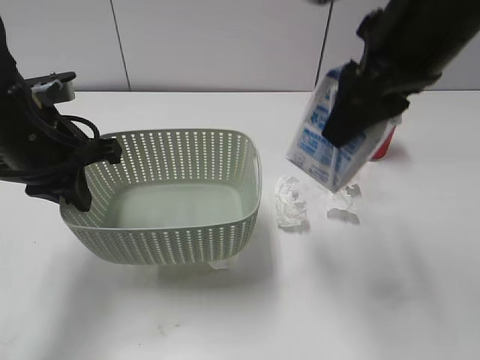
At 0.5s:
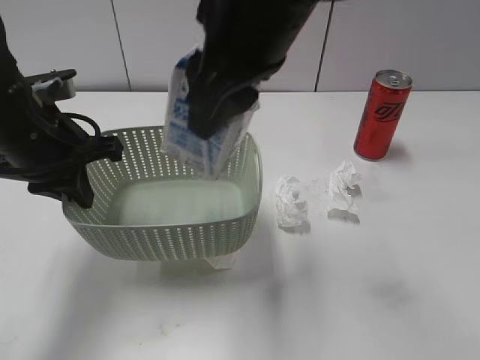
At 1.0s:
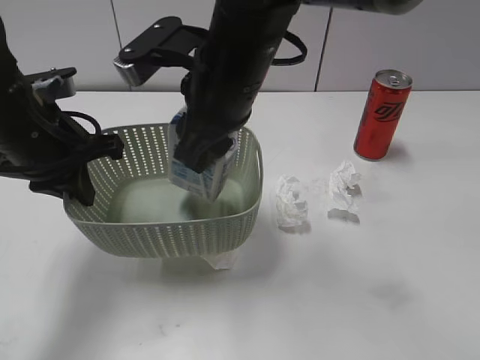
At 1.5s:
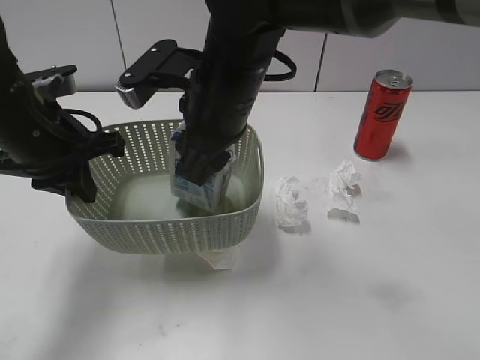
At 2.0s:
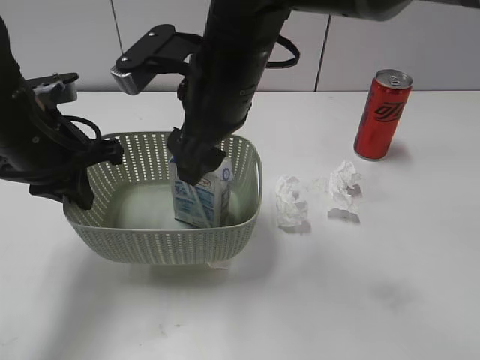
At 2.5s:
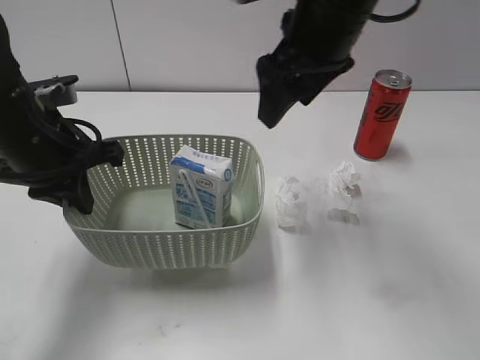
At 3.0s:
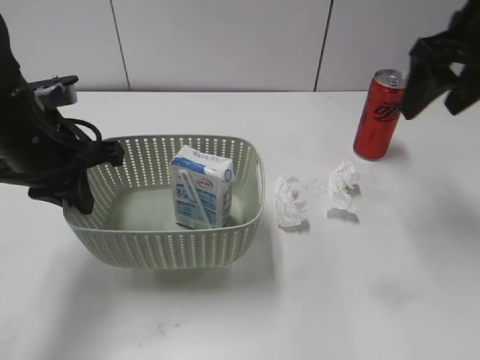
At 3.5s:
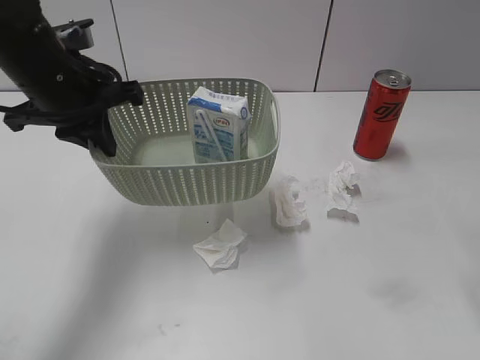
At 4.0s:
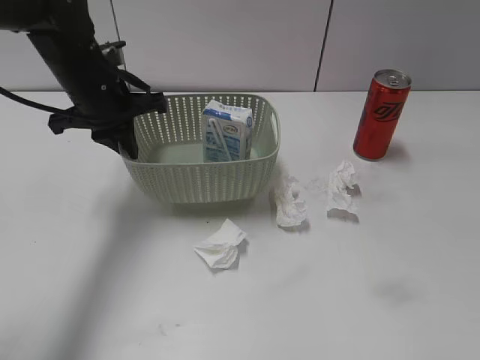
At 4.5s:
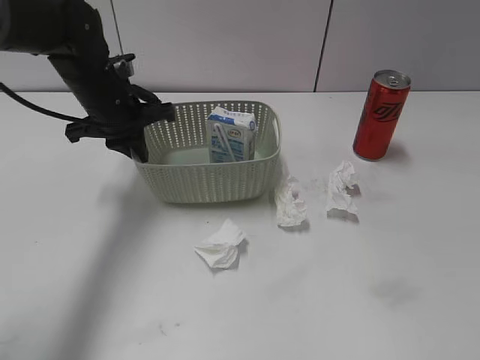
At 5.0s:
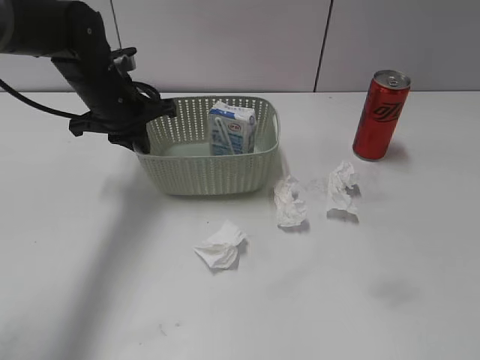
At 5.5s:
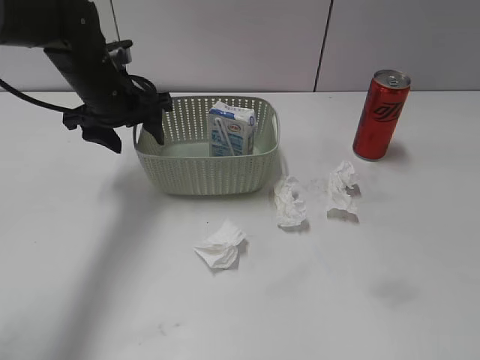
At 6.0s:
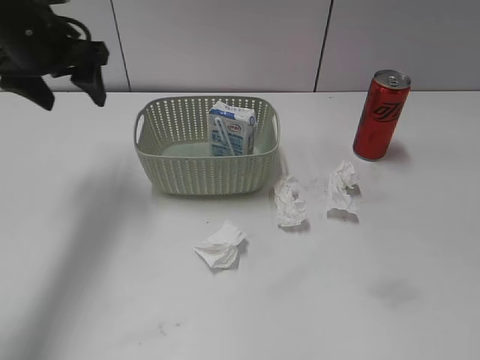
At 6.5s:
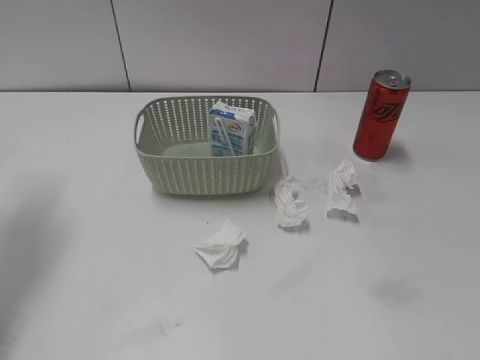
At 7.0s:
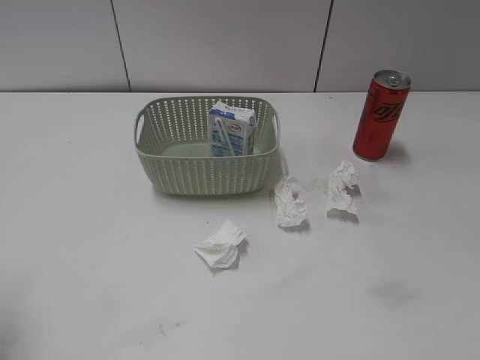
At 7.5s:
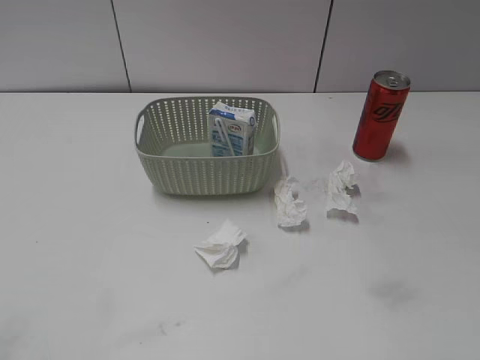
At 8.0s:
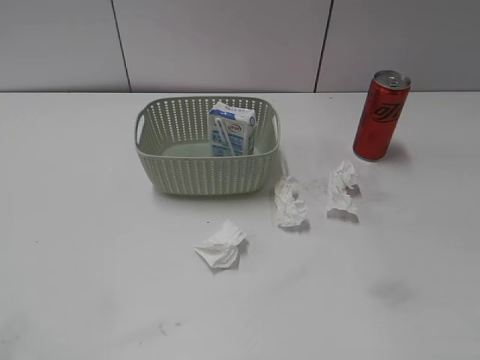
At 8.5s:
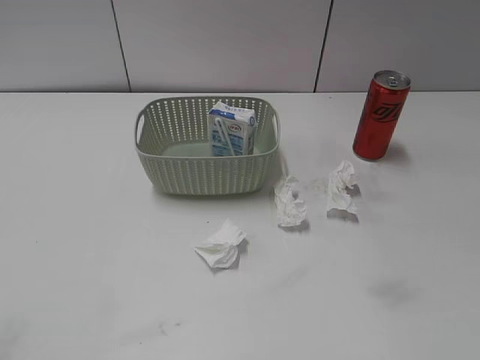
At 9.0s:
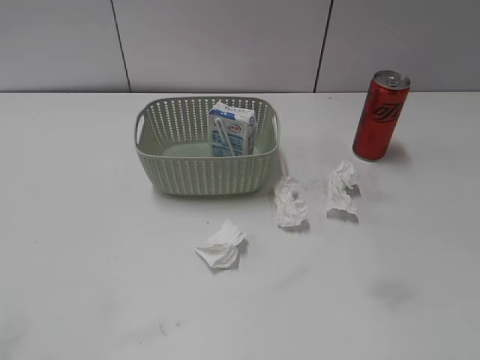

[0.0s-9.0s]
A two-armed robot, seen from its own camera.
Step, 0.0s to 2.0s: Place the milk in the basket with right gripper.
Step, 2.5s to 5.5s: Place the basket on the table with left gripper.
0.0s to 2.0s: The right gripper is displaced to the left and downward by roughly 15 cm, and opens.
2.0s to 4.5s: The left gripper travels forward by approximately 10 cm. Meanwhile the right gripper heads to the right and backward, covering roughly 40 cm.
4.5s to 7.0s: The left gripper heads backward, to the left and upward, covering roughly 35 cm, and opens its fingers.

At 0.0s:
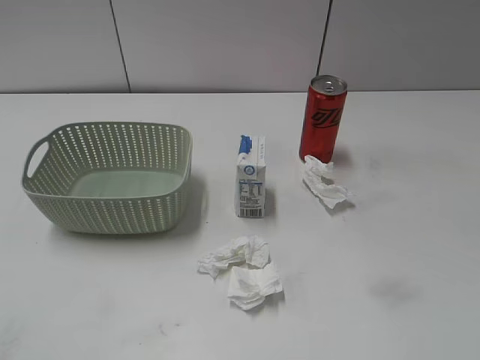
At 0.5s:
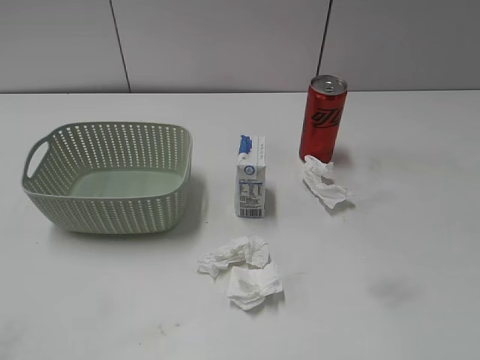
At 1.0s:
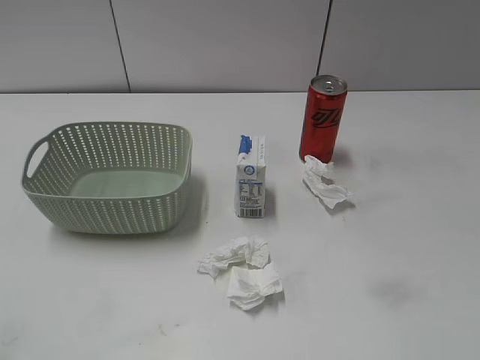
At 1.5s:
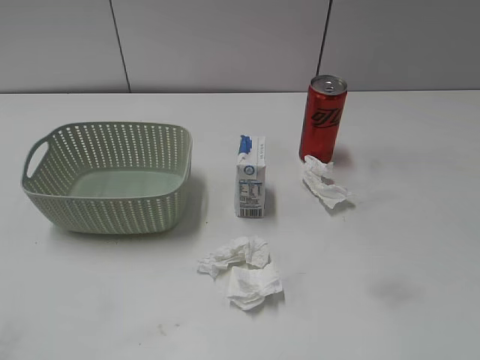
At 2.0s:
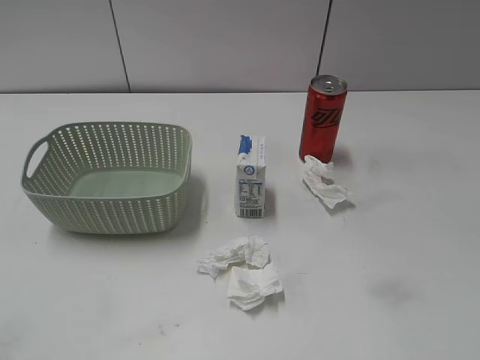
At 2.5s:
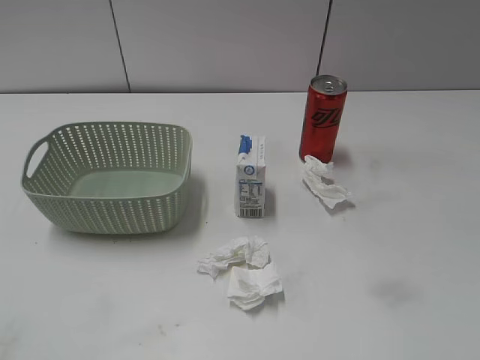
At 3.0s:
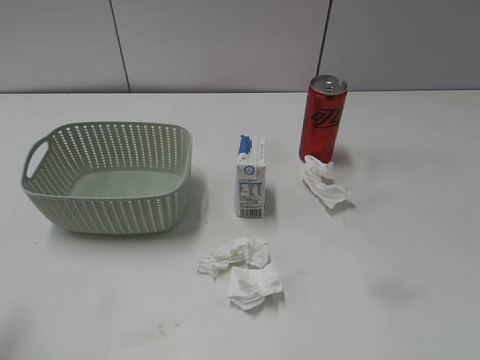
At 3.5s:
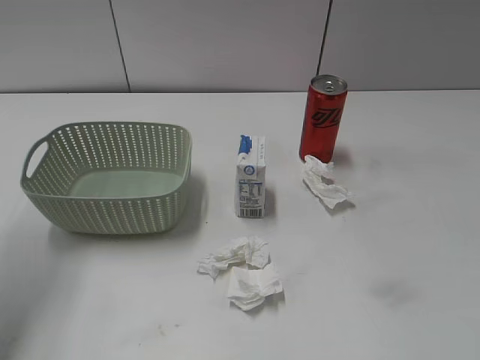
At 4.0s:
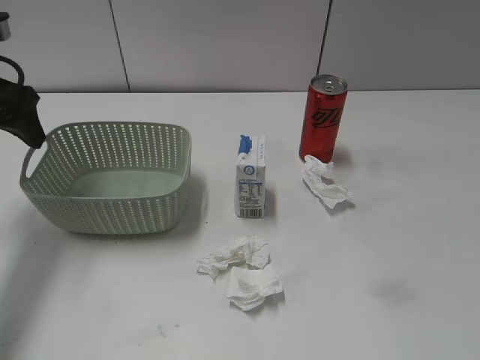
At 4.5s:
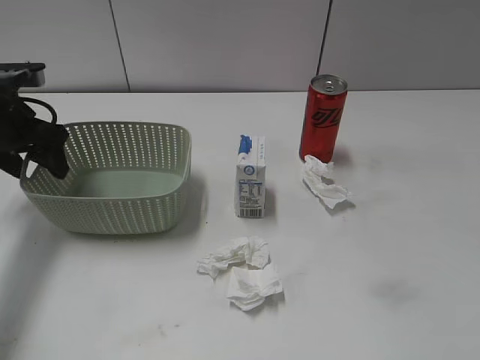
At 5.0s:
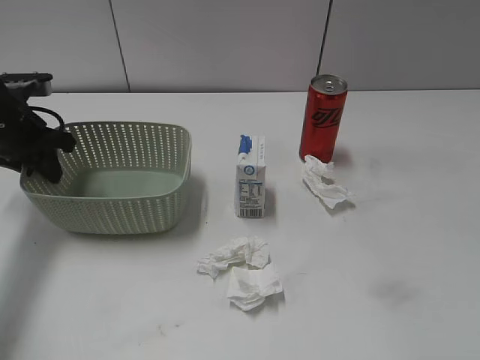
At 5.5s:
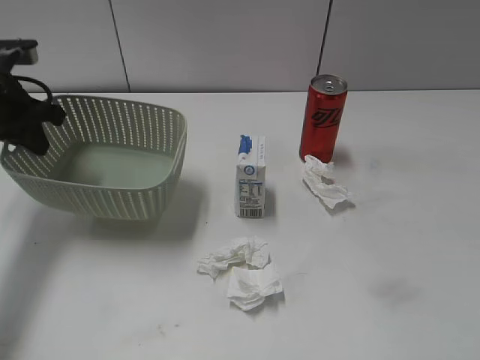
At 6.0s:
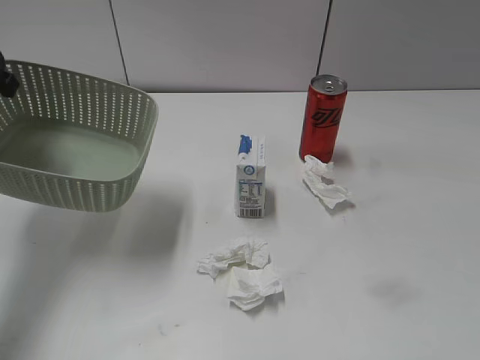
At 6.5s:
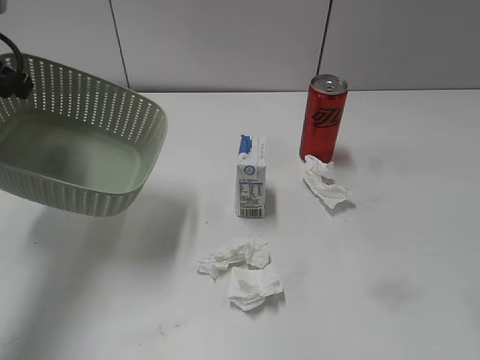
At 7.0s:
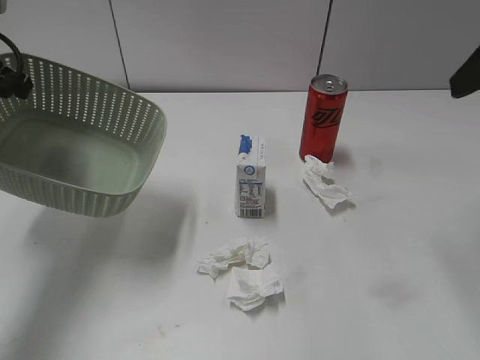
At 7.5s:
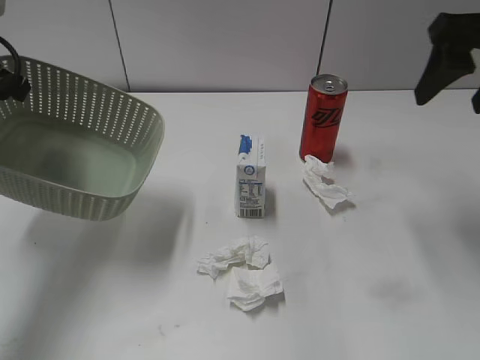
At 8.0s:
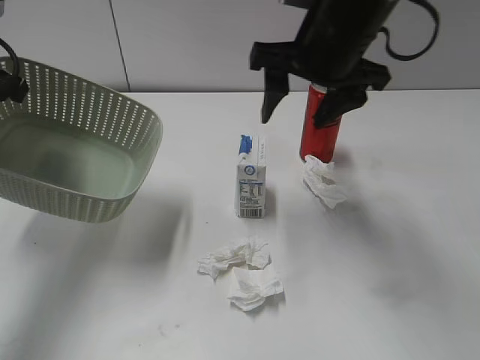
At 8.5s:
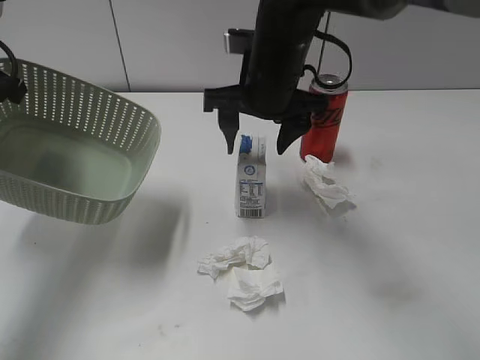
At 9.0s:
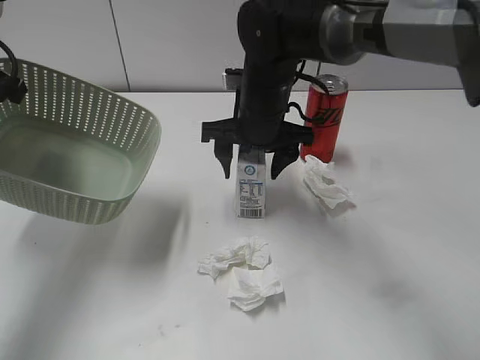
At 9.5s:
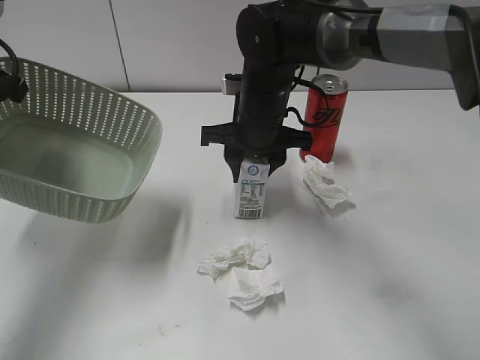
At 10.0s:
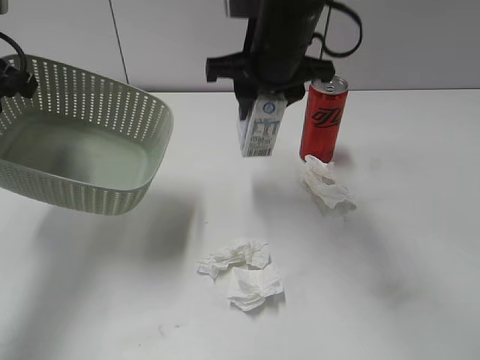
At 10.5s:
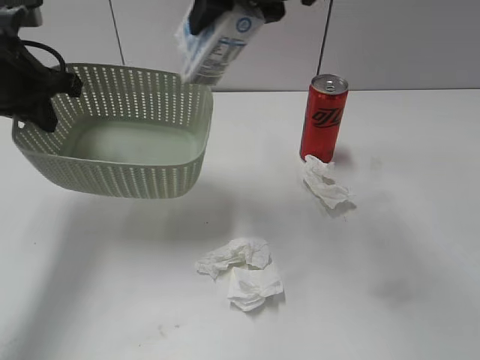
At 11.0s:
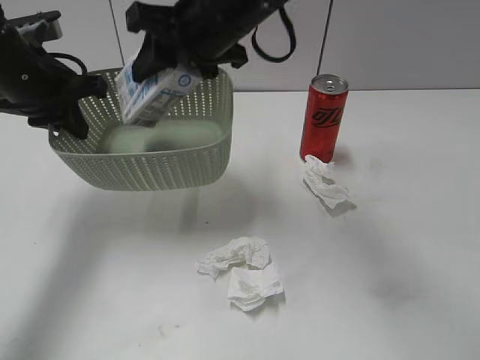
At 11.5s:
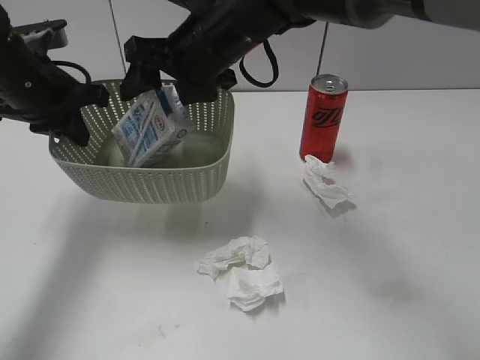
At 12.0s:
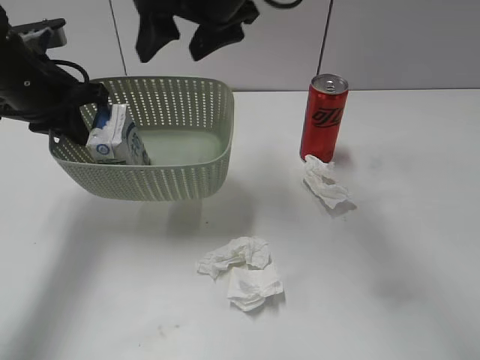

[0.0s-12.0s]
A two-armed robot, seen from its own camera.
Step, 4.0s to 5.0s: Grasp the basket with left gripper.
Step, 5.5s to 6.5s: Lift the basket with left gripper.
Step, 7.0s to 9.5s: Grasp the milk with right gripper.
Step, 10.0s to 11.5s: Place the milk in the basket with right gripper.
2.0s to 4.0s: The left gripper goes approximately 35 cm forward.
4.0s to 6.0s: The left gripper goes downward and returns, approximately 10 cm each way, and closes.
6.0s to 8.0s: The right gripper goes roughly 40 cm forward and to the left.
8.0s to 10.0s: The right gripper goes roughly 5 cm to the left, goes downward and returns, roughly 15 cm each way, and closes.
10.0s to 12.0s: The left gripper moves downward, roughly 5 cm; the right gripper swings up and down, roughly 10 cm each way, with 2 reversals, and opens its fingers.

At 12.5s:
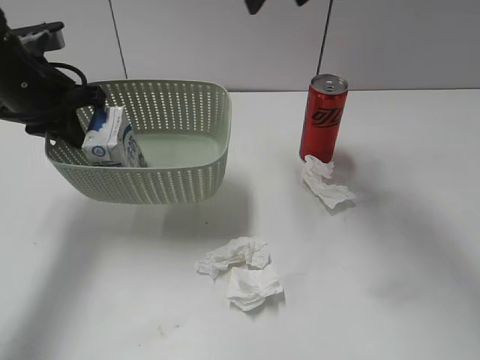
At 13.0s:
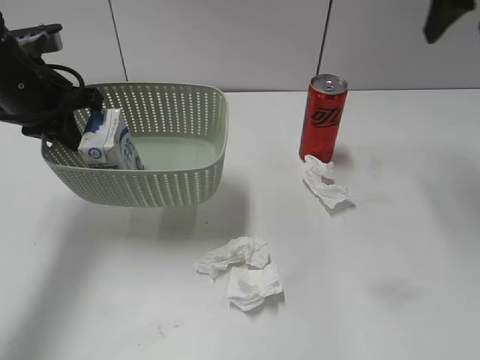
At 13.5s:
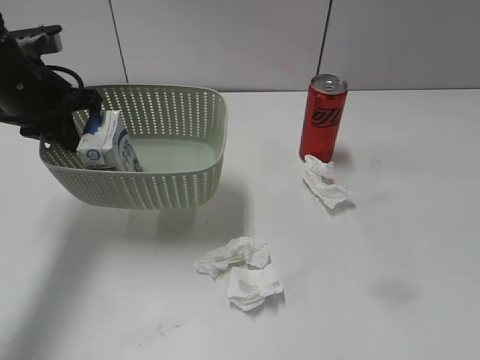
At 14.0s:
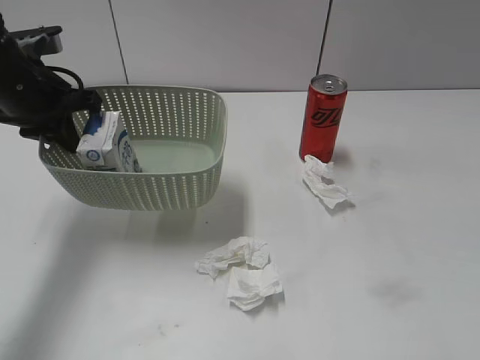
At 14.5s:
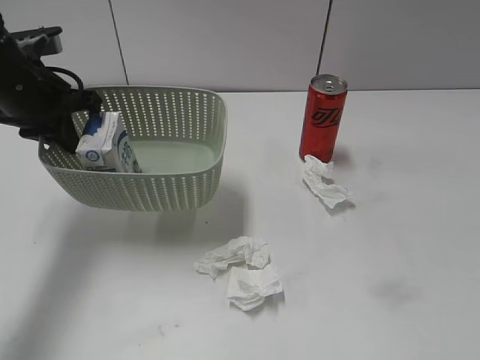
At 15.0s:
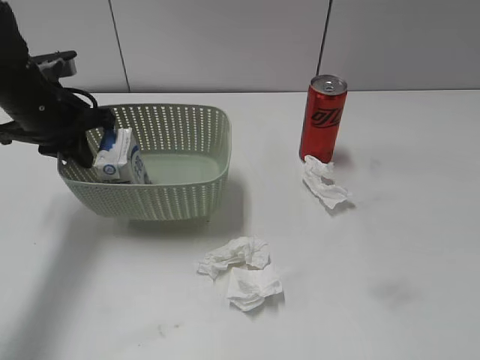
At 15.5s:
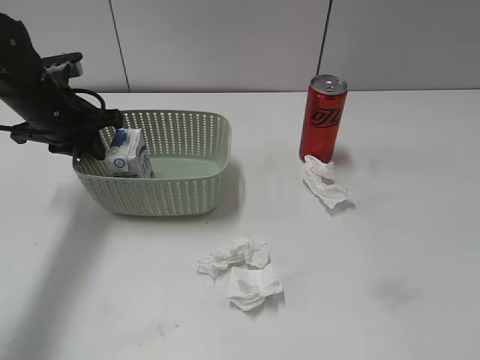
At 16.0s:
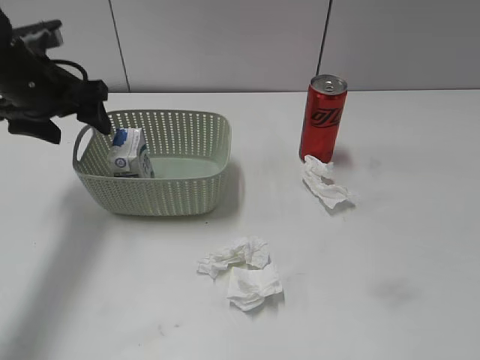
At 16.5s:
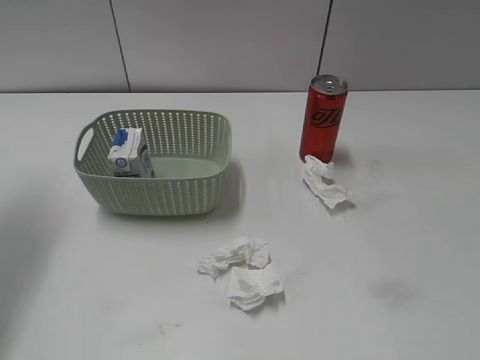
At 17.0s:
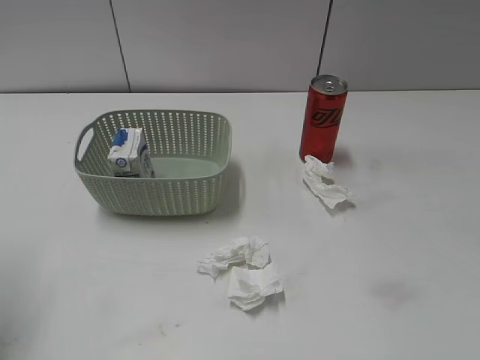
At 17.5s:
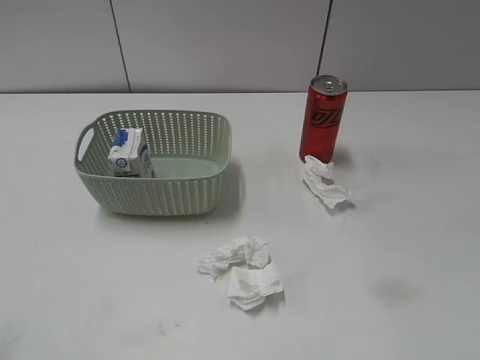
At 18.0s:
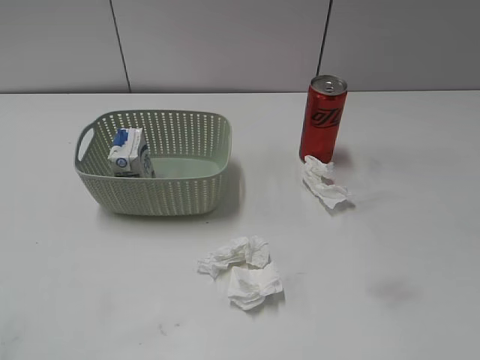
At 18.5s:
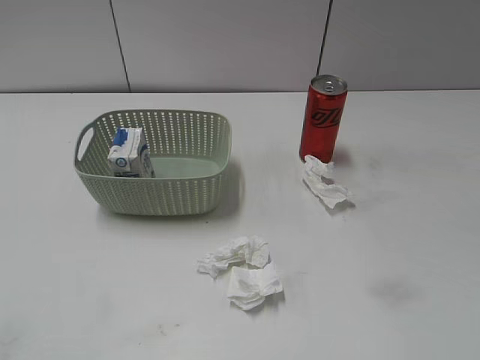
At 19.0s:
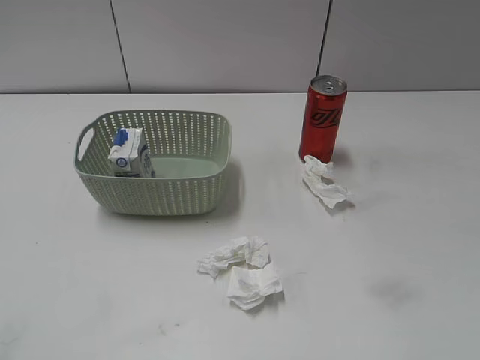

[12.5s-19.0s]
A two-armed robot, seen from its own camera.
Step, 12.5s to 16.0s: Place the basket on the table with left gripper.
12.5s to 14.5s: The right gripper travels backward and to the right by roughly 40 cm.
14.5s to 17.0s: The left gripper travels backward, to the left and upward by roughly 20 cm, and opens up.
17.0s to 19.0s: The left gripper travels backward by roughly 20 cm.
